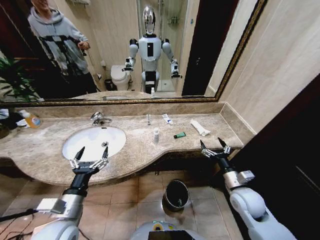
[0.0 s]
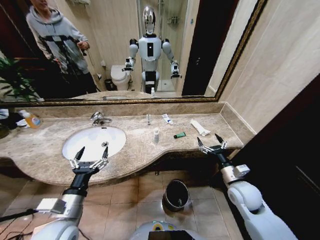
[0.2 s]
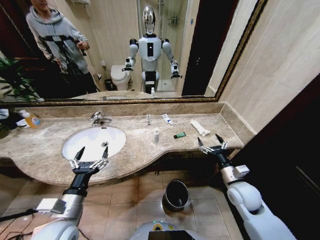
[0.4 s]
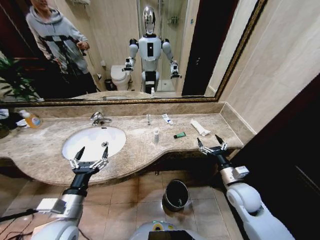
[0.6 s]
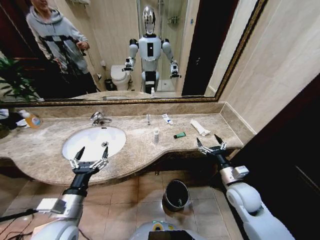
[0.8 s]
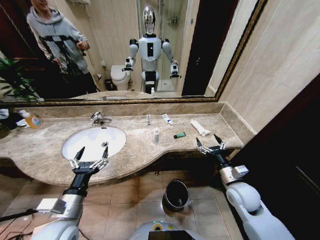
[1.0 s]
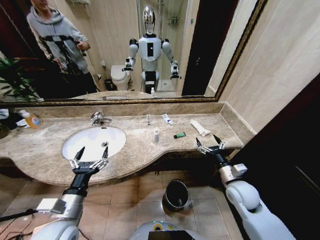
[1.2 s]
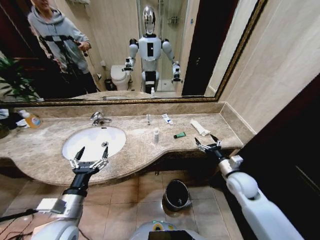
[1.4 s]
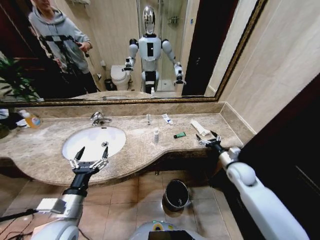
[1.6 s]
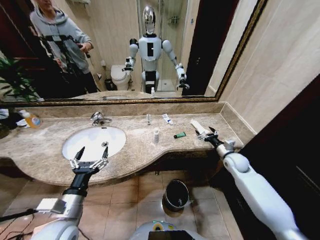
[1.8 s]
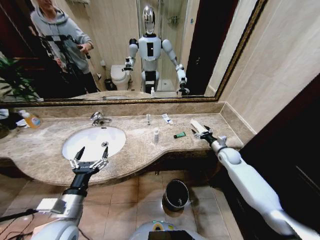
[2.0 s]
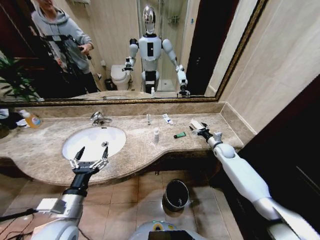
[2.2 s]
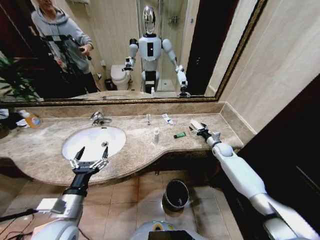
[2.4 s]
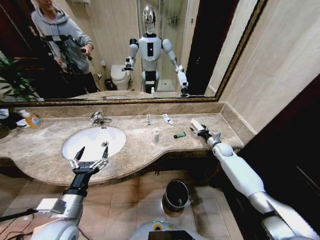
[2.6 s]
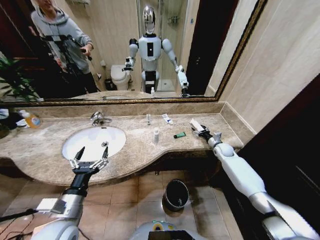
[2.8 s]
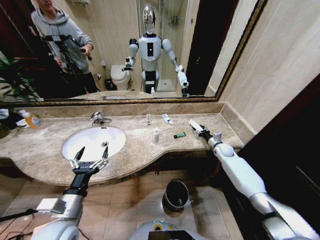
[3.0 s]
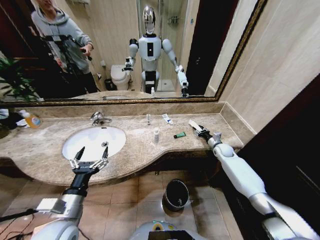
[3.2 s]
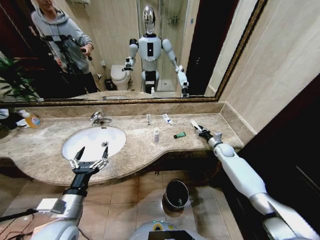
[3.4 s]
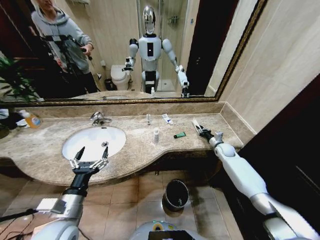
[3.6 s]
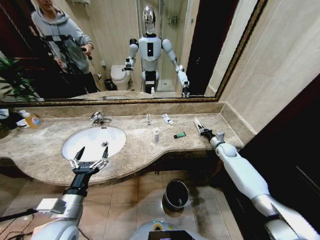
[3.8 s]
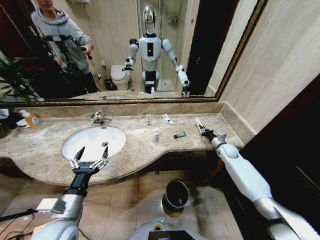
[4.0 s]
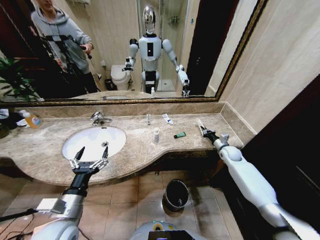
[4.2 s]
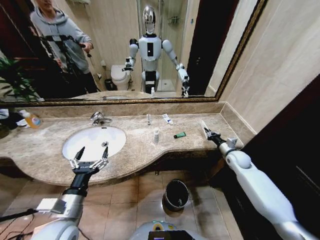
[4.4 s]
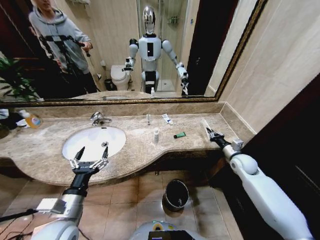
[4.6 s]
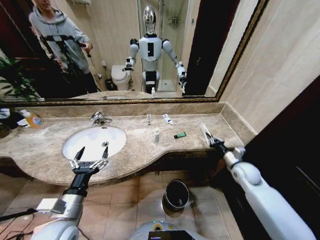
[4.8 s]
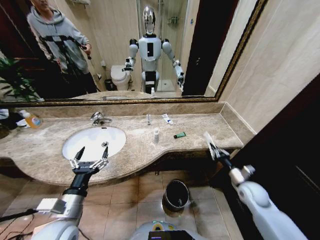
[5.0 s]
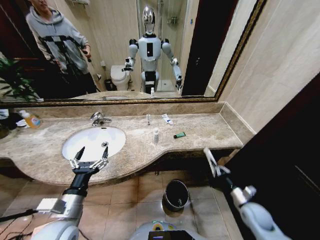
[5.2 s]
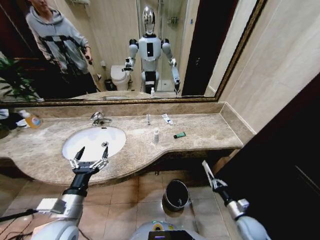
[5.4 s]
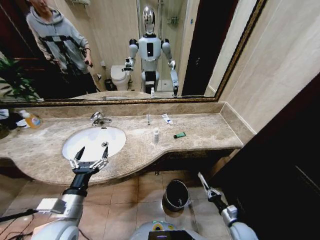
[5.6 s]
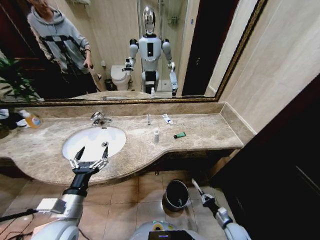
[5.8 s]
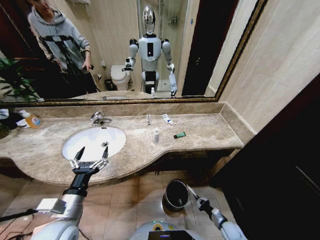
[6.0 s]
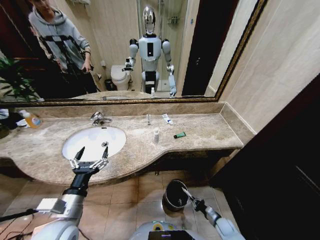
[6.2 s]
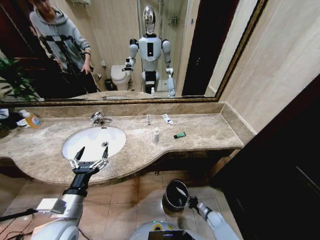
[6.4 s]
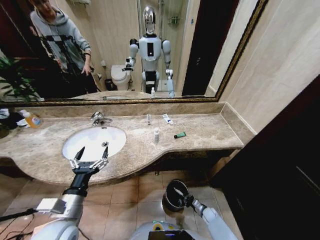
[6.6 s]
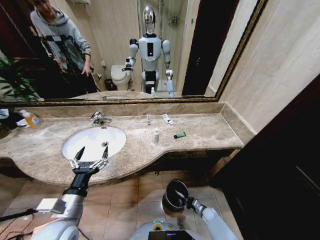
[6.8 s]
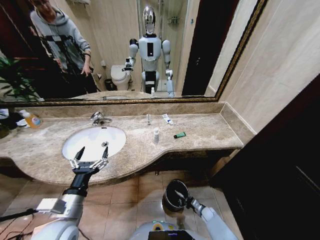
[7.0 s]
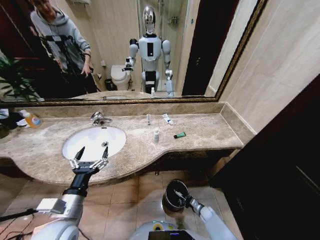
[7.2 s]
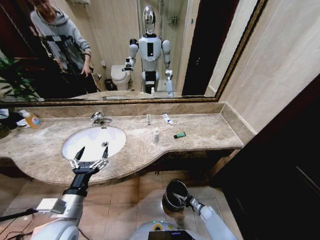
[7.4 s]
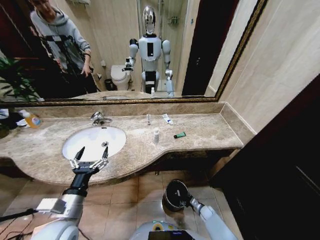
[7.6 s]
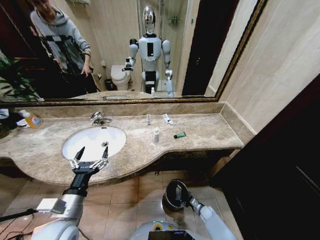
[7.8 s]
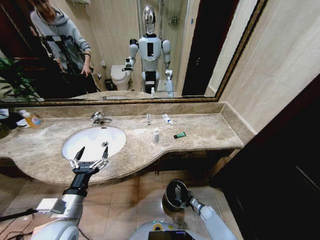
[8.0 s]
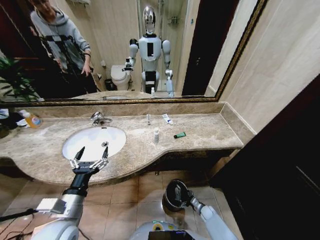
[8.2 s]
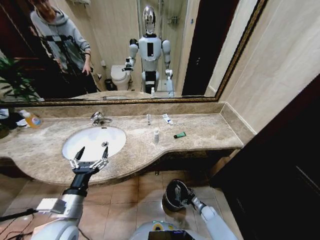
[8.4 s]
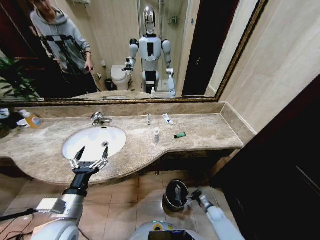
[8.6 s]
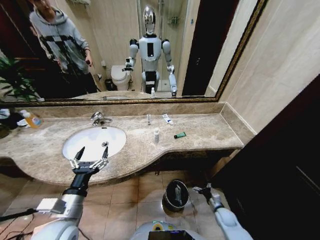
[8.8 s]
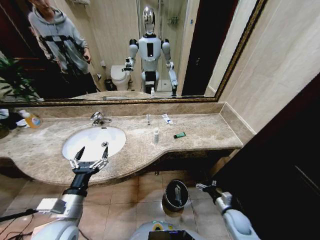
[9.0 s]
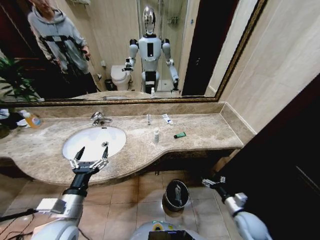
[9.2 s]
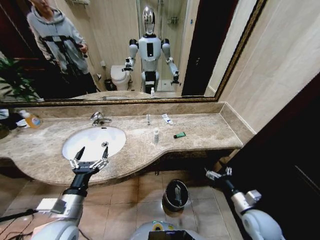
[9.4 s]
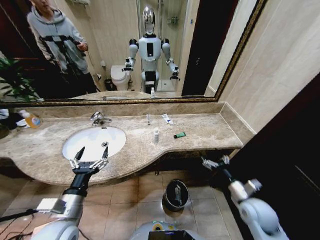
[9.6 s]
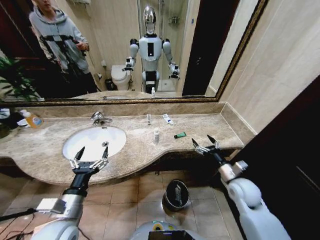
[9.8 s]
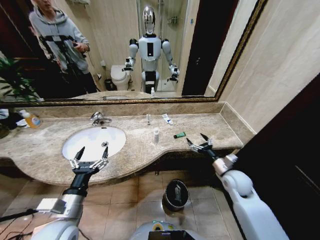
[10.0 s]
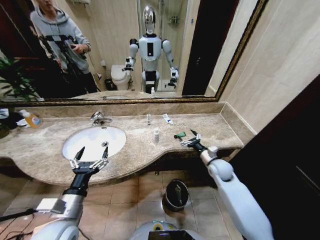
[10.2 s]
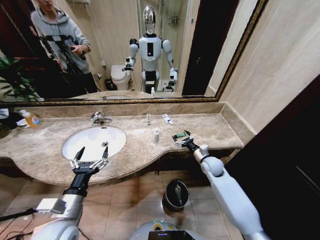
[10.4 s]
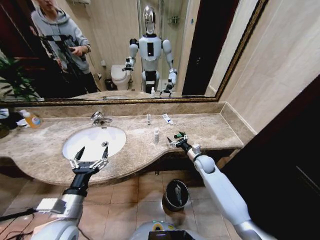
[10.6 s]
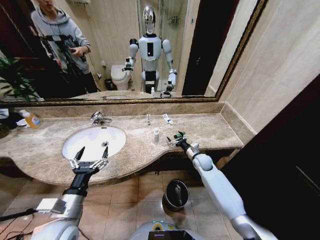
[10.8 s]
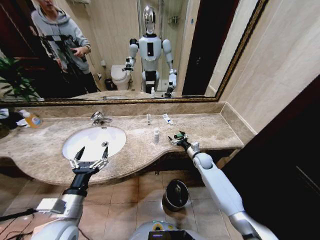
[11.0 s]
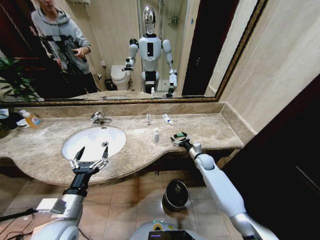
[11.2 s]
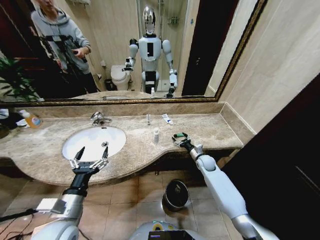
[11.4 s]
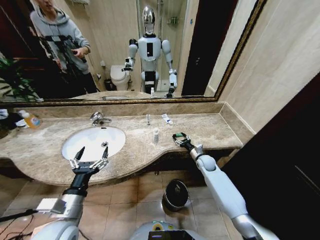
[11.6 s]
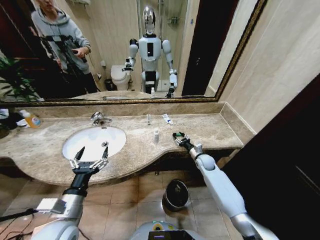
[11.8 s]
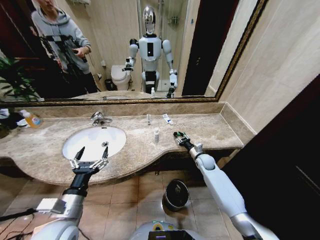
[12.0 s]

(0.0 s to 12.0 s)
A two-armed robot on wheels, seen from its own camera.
Task of the whole recording: Pick up the trash from the sink and place it in the trash bin.
1.6 s - 3.0 s: The right gripper is displaced forward by roughly 15 cm.
3.0 s - 4.4 s: The right gripper travels backward by about 5 cm, and closes up.
4.4 s - 6.0 s: The right gripper goes approximately 40 cm downward and backward.
6.0 s - 7.6 s: The right gripper heads forward, downward and to the left, covering approximately 15 cm, and opens up.
7.6 s - 9.0 s: The right gripper moves upward, about 20 cm, and opens.
9.0 s - 10.4 s: The right gripper heads forward, upward and to the left, covering approximately 25 cm.
10.4 s - 12.0 s: The right gripper travels forward and downward by some 5 cm, and closes its fingers.

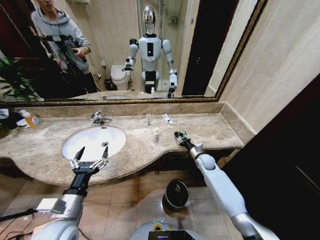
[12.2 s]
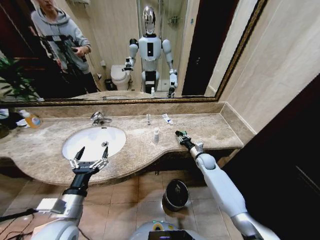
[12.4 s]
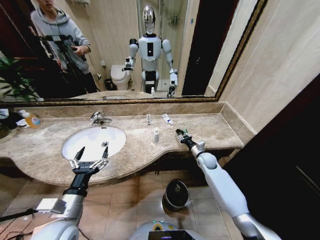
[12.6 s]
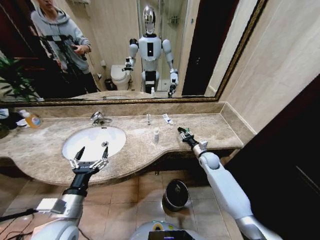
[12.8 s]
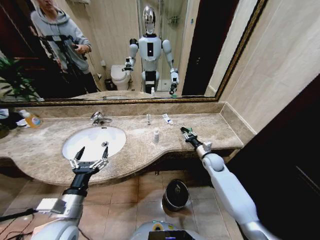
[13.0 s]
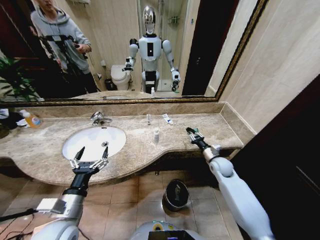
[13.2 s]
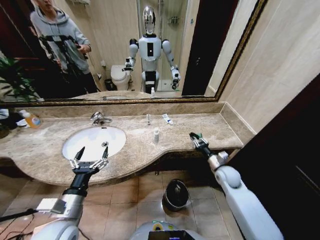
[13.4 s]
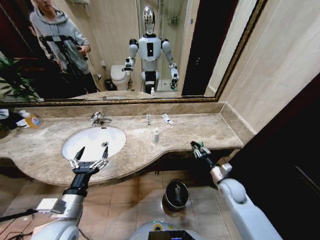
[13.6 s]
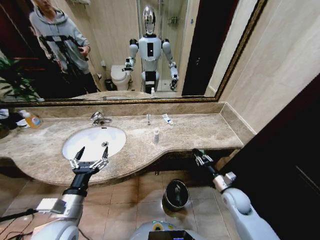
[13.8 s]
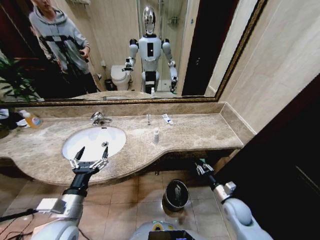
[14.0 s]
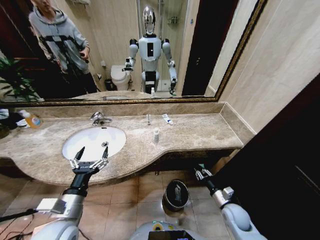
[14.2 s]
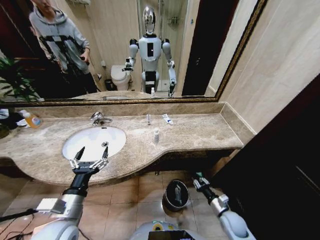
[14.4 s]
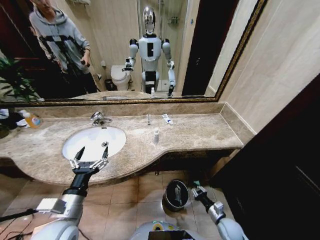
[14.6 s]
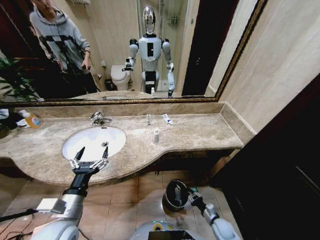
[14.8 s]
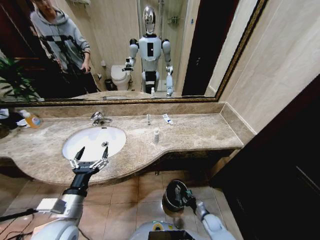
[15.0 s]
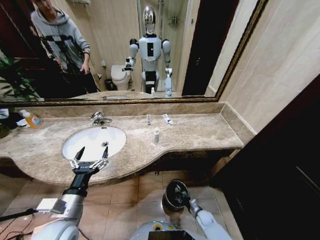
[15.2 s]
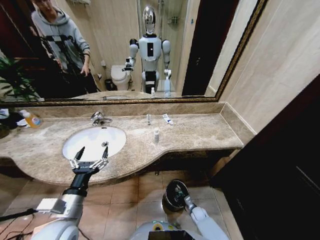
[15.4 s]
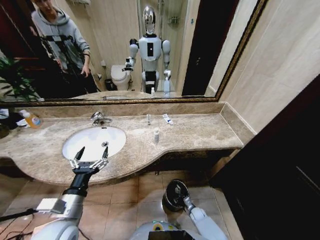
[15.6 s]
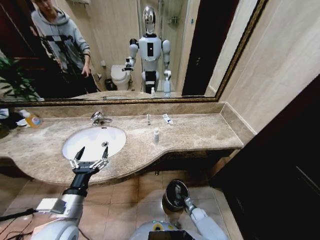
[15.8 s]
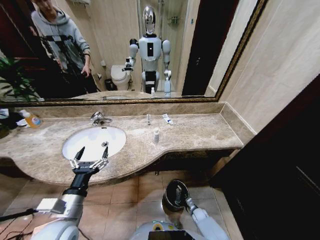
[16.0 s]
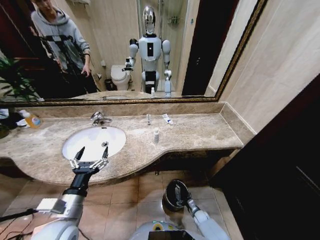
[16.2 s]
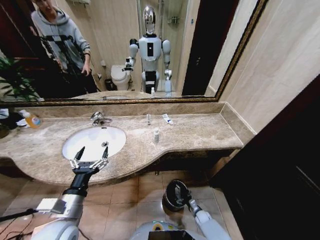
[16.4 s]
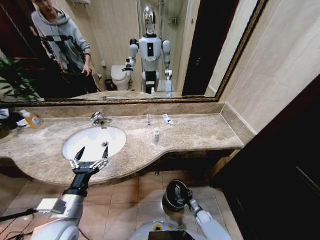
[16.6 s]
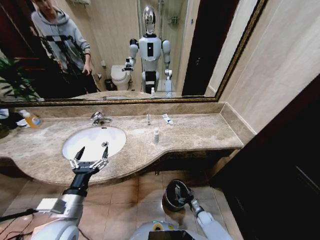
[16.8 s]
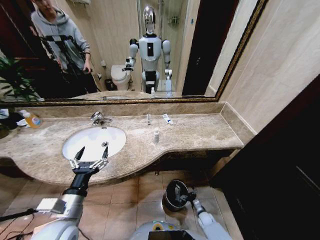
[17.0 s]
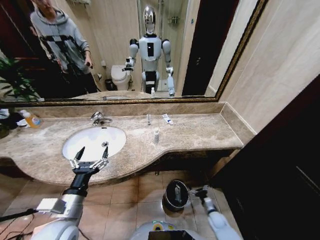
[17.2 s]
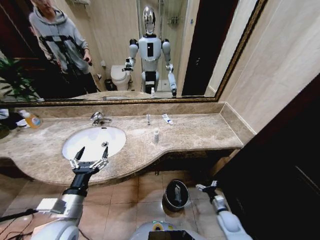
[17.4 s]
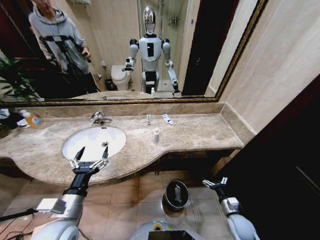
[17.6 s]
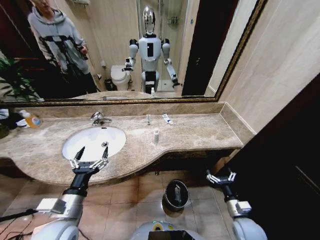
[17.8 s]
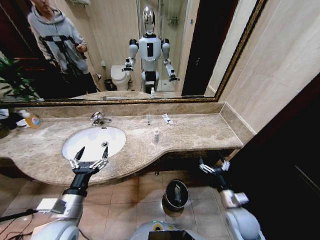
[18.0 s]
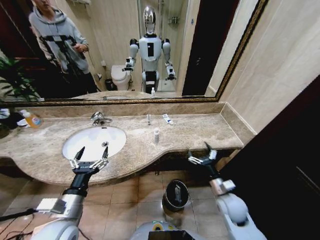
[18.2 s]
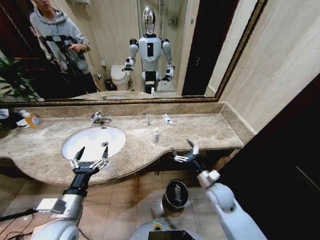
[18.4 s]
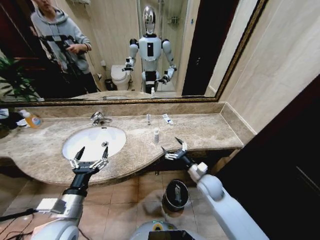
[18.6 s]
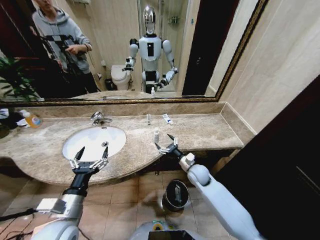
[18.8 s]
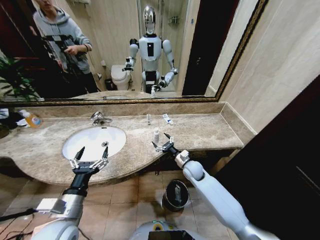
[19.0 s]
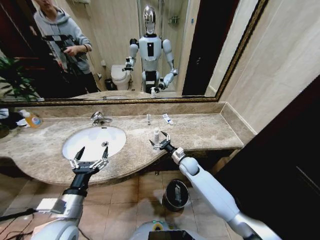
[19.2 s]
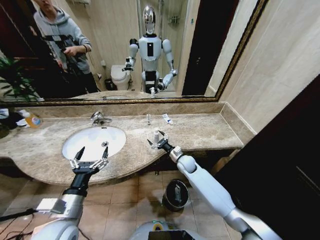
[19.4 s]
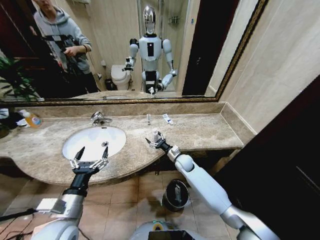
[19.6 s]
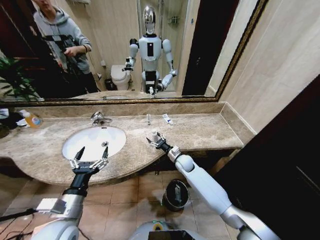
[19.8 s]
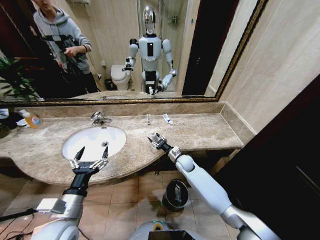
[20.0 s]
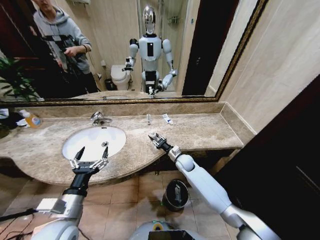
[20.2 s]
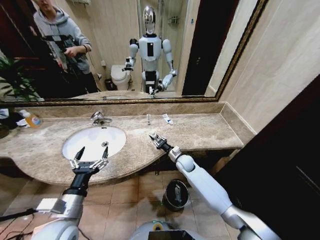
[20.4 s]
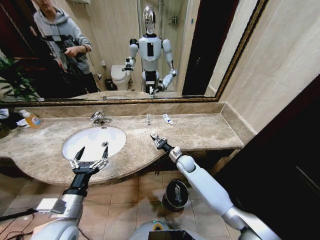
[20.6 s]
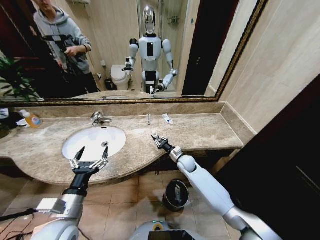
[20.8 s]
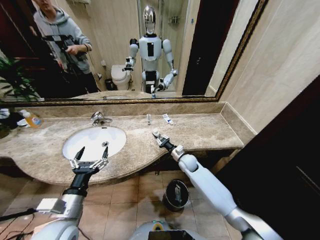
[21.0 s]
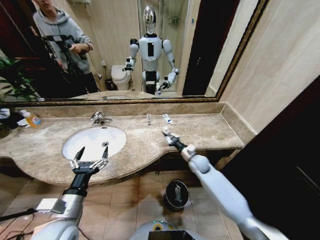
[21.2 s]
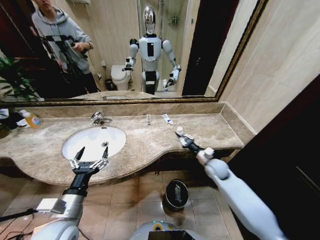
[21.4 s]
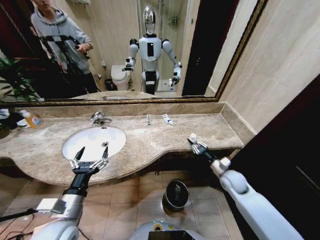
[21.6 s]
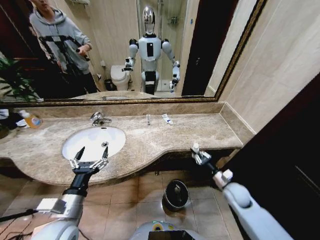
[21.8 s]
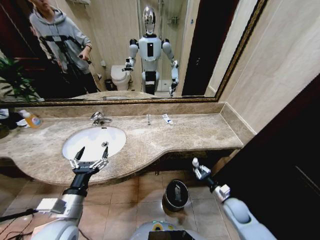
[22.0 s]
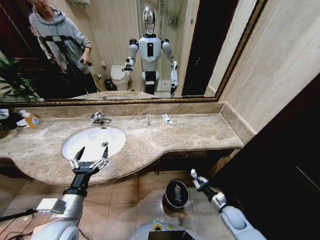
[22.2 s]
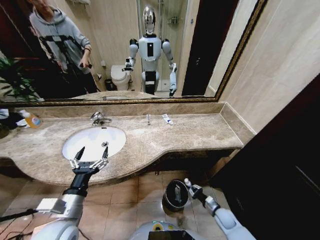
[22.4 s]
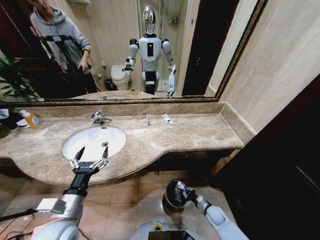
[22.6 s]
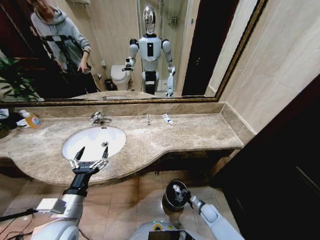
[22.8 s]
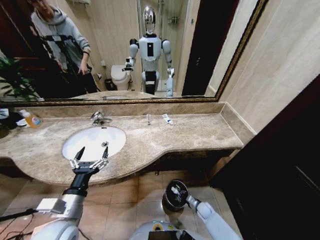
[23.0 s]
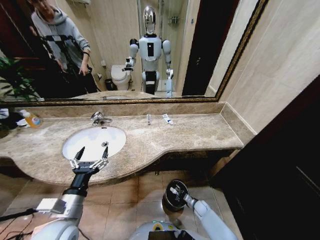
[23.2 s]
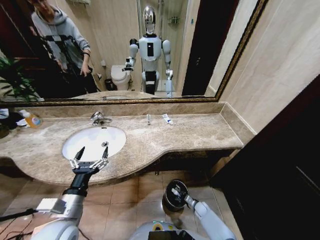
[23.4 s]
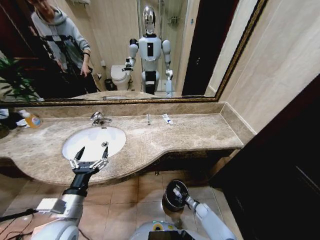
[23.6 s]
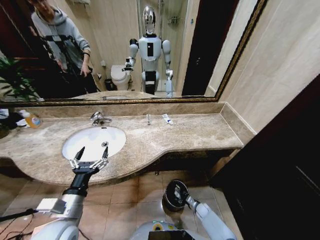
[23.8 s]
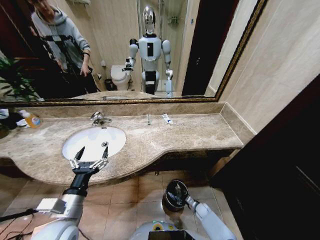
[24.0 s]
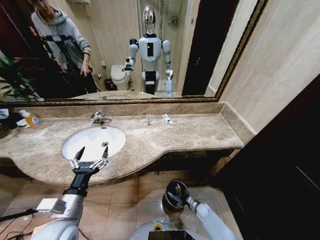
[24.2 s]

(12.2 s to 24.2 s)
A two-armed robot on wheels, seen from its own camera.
Task of the whole recording: Pick up the trash from the sink and place it in the trash bin.
12.2 s - 13.8 s: The right gripper moves backward, approximately 20 cm.
13.8 s - 15.2 s: The right gripper travels downward by approximately 25 cm.
16.6 s - 18.2 s: The right gripper is displaced upward by roughly 35 cm.
18.2 s - 19.8 s: The right gripper heads forward and to the left, covering some 25 cm.
19.8 s - 21.2 s: The right gripper is displaced to the right by about 5 cm, and closes up.
21.2 s - 22.6 s: The right gripper goes some 30 cm downward and backward.
22.6 s - 24.2 s: The right gripper heads downward, covering about 10 cm, and opens its fingers.
